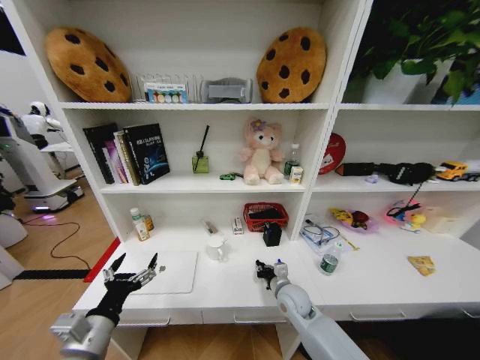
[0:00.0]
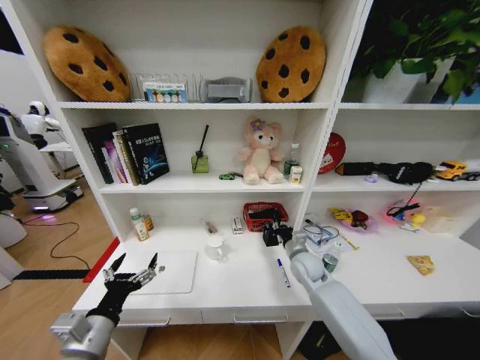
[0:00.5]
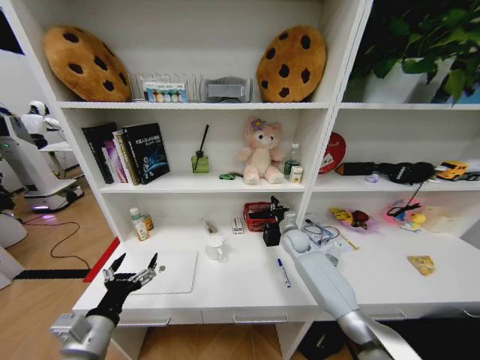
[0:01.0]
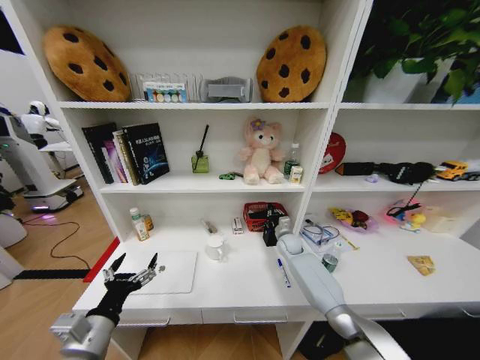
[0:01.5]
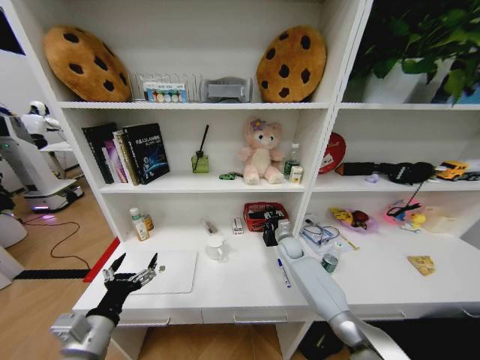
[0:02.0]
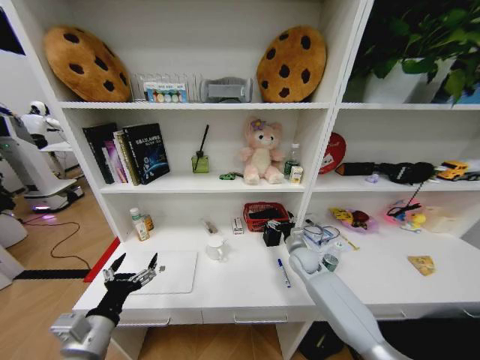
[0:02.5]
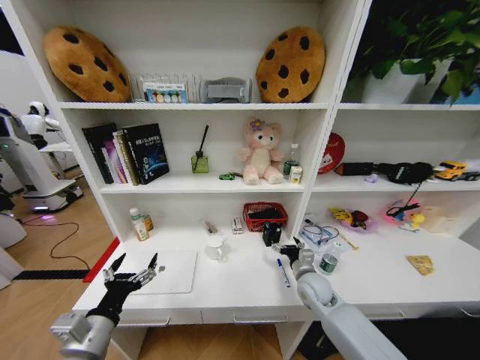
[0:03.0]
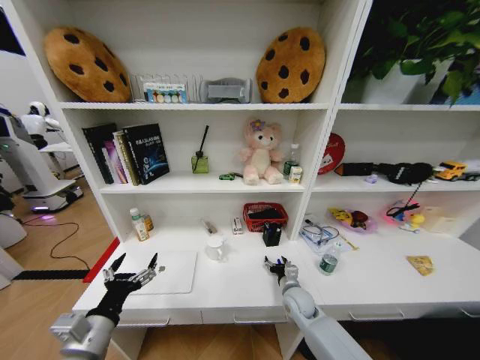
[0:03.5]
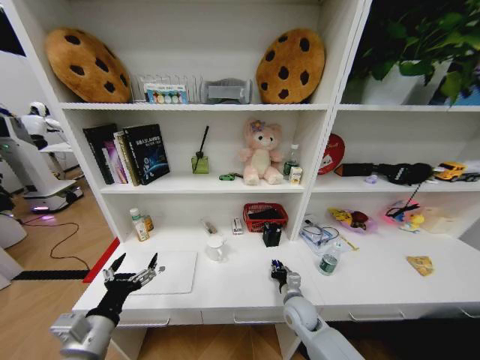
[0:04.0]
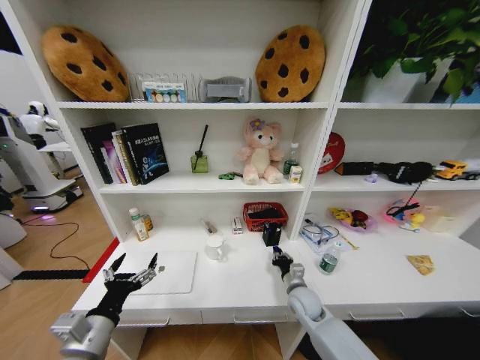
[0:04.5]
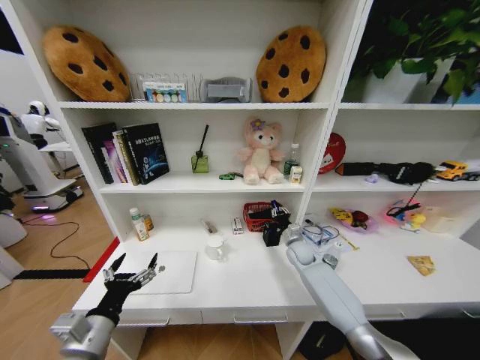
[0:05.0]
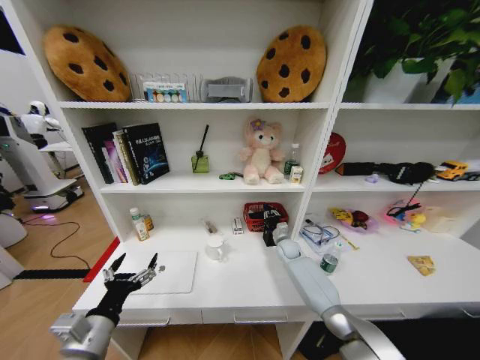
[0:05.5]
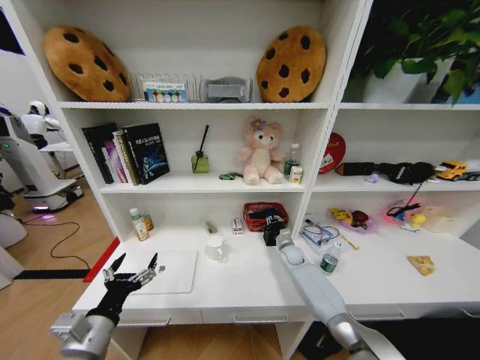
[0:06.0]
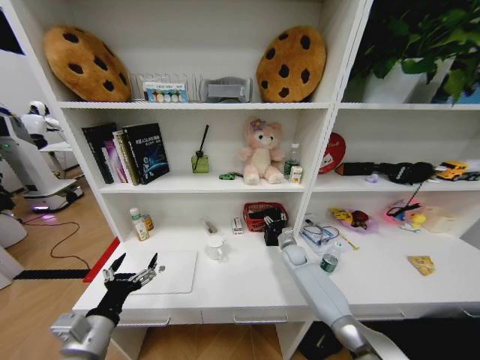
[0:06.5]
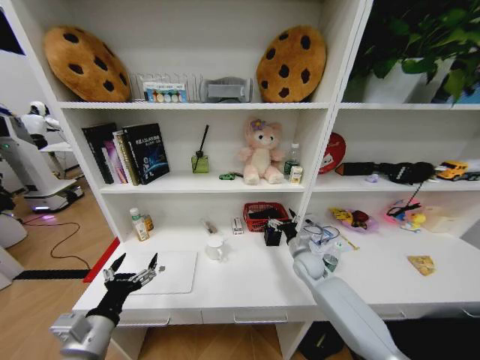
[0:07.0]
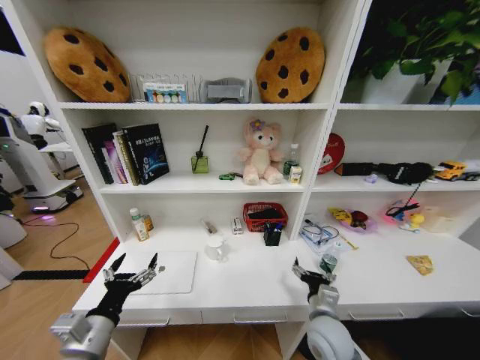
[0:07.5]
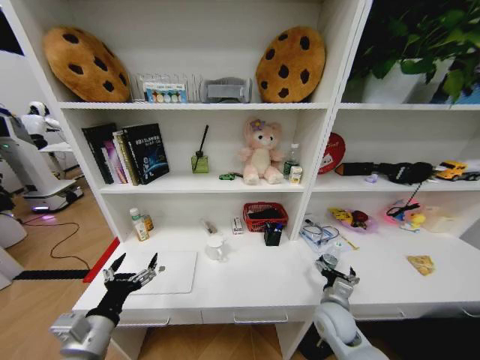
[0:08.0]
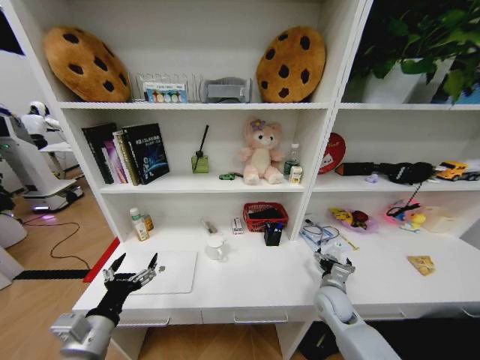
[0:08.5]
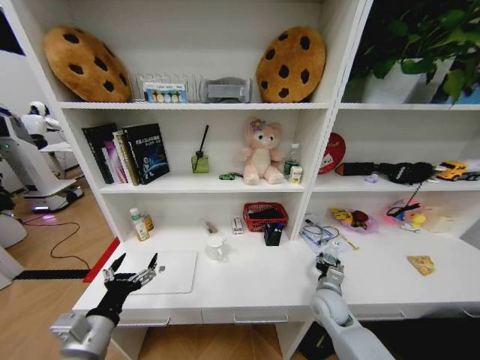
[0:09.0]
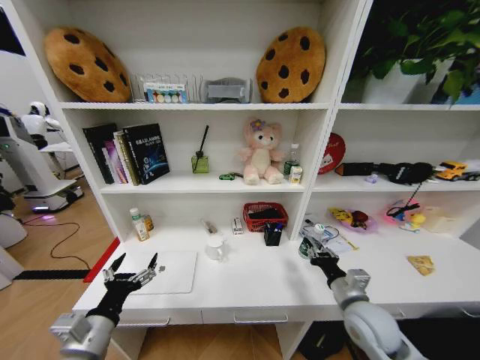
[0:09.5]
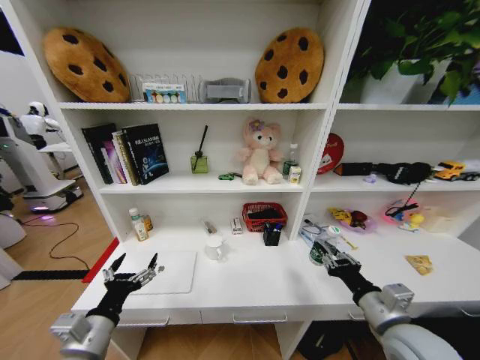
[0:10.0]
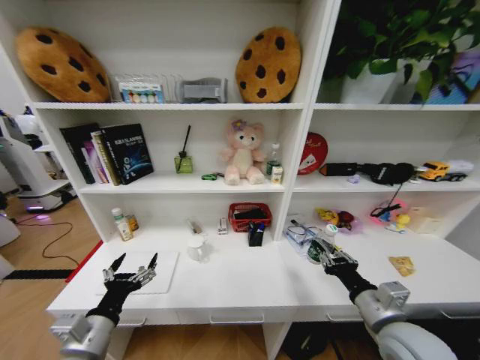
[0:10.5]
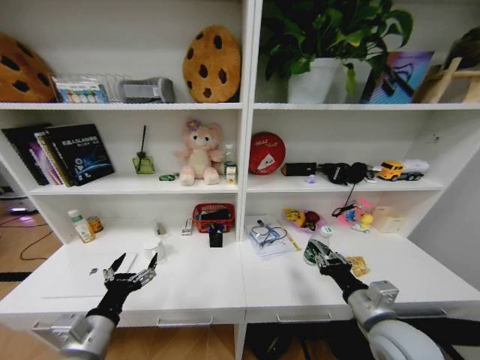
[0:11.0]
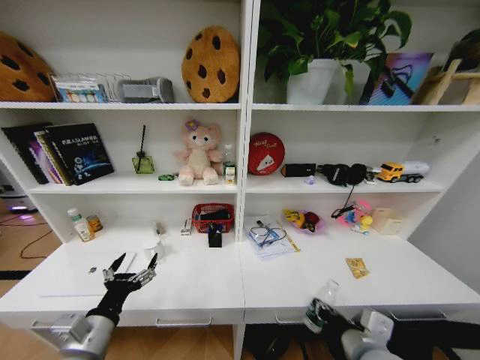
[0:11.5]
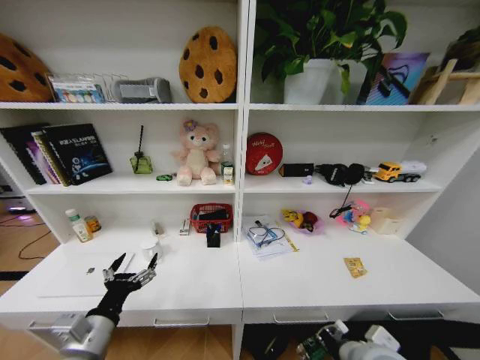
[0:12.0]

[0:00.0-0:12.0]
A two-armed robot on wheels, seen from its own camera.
Task of the whole recording: Organize the objects on the table.
0:00.0 to 0:02.0: The right gripper moves forward, roughly 20 cm.
0:02.0 to 0:04.0: The right gripper shifts some 20 cm backward, and opens, then closes once more.
0:04.0 to 0:06.0: The right gripper travels forward by about 20 cm.
0:06.0 to 0:08.0: The right gripper shifts roughly 25 cm backward, and opens its fingers.
0:08.0 to 0:10.0: The right gripper goes approximately 15 cm upward and backward, and closes up.
0:10.0 to 0:12.0: The right gripper travels to the left by roughly 10 cm.

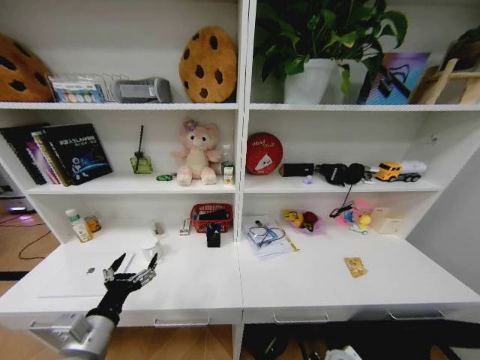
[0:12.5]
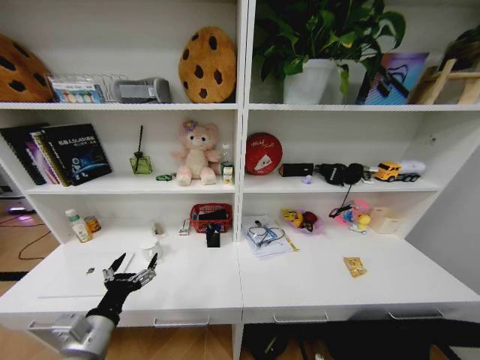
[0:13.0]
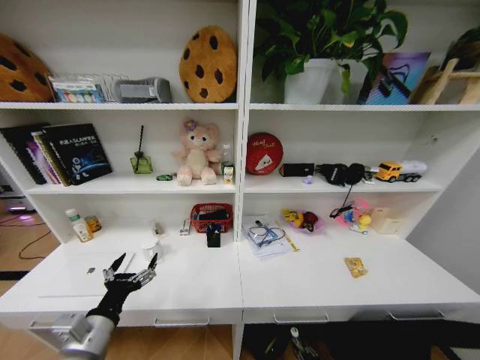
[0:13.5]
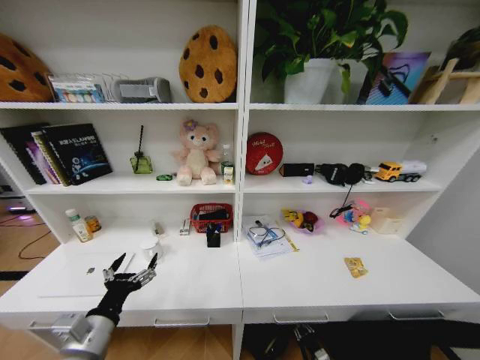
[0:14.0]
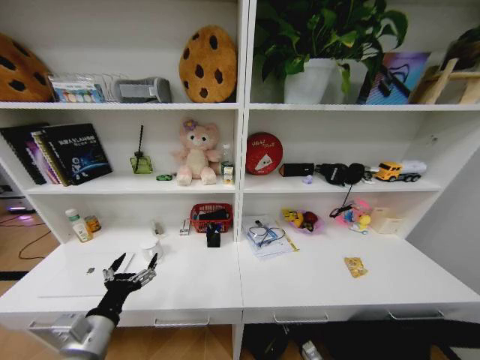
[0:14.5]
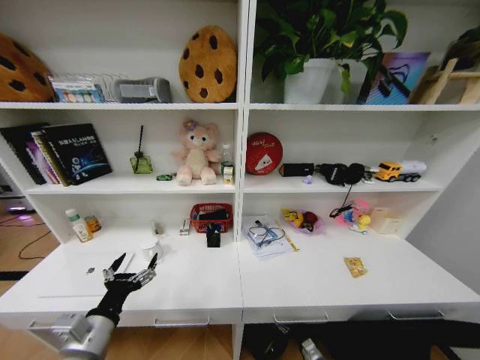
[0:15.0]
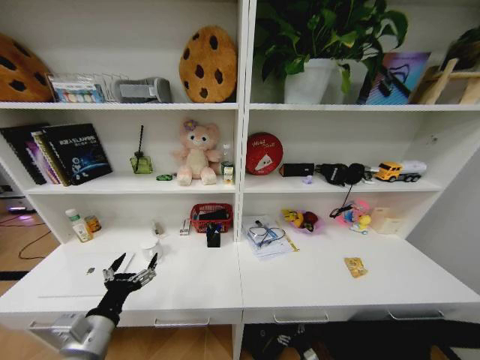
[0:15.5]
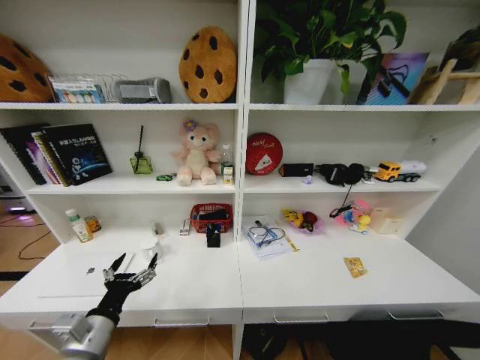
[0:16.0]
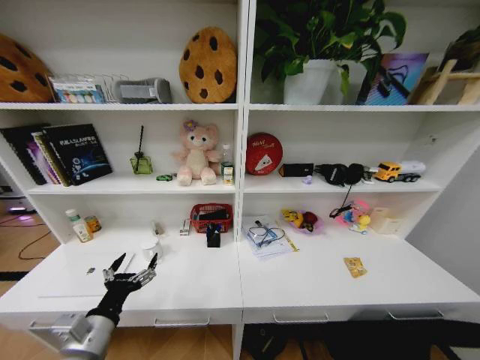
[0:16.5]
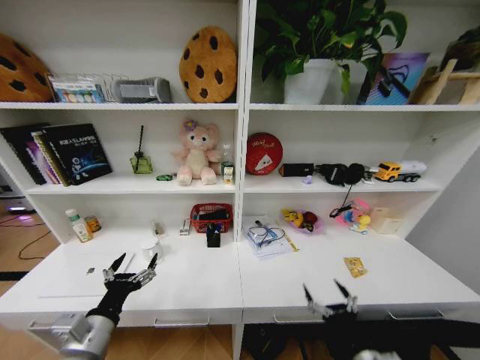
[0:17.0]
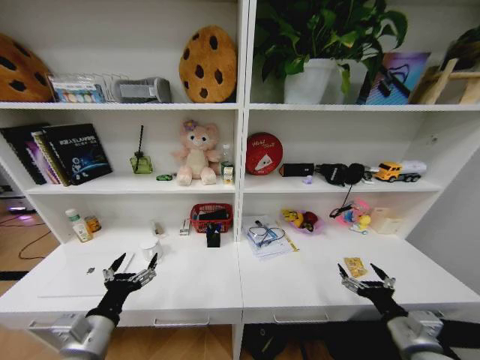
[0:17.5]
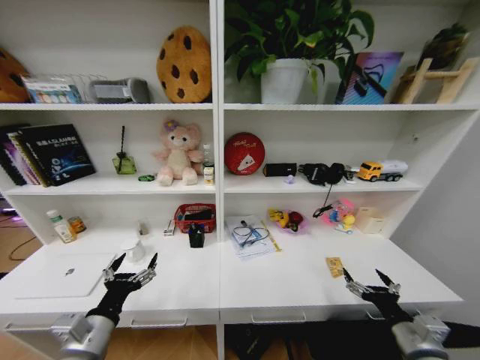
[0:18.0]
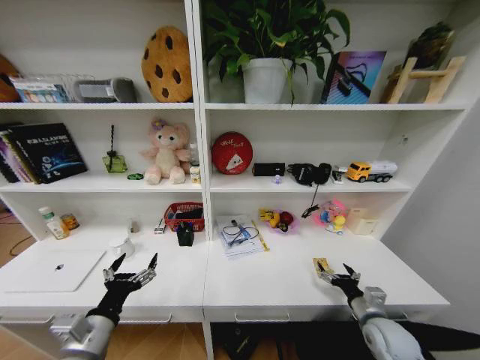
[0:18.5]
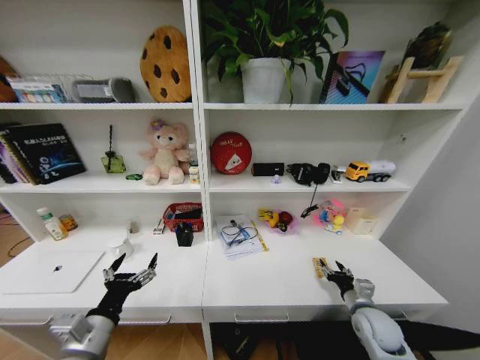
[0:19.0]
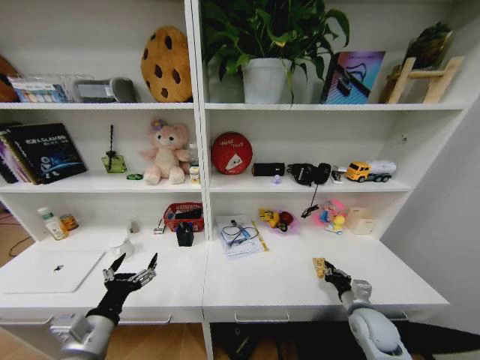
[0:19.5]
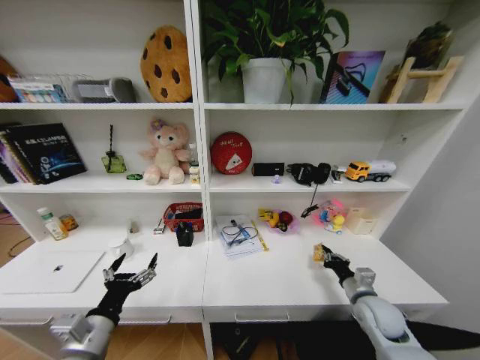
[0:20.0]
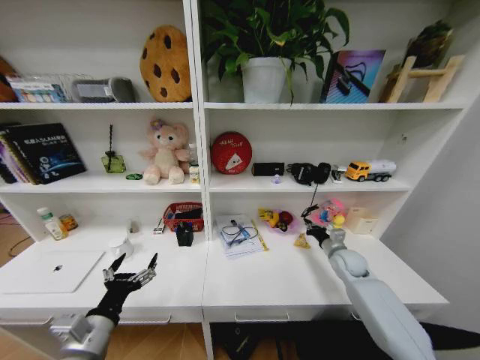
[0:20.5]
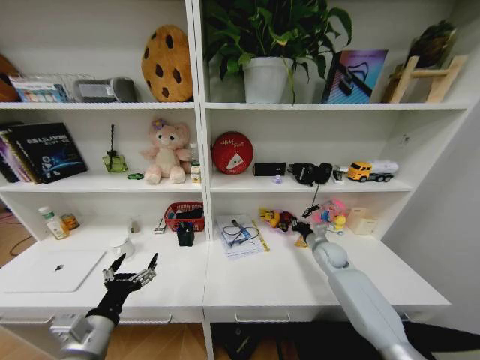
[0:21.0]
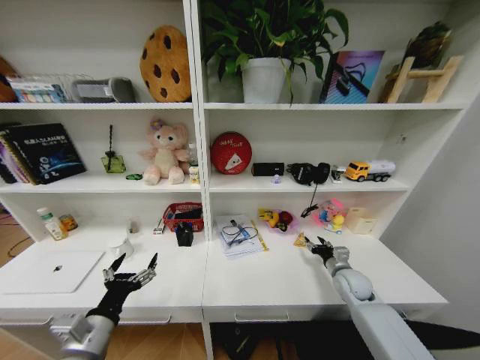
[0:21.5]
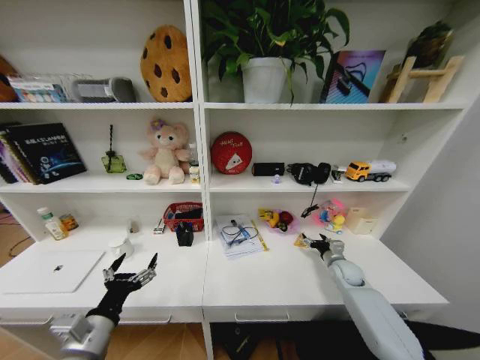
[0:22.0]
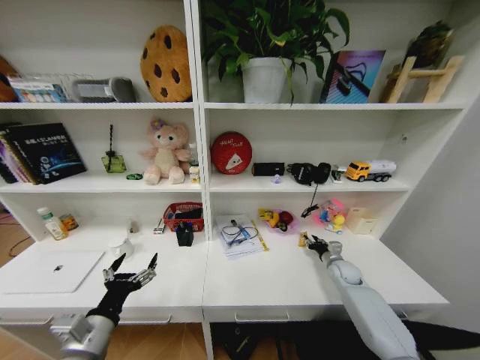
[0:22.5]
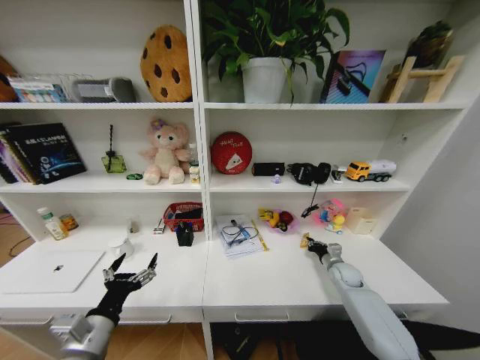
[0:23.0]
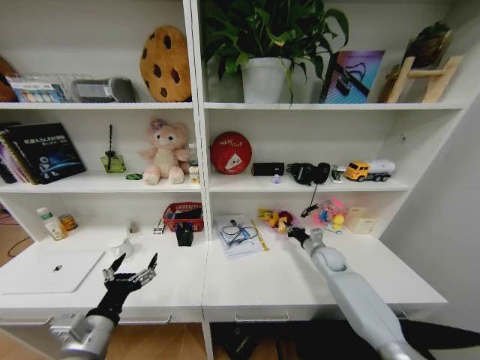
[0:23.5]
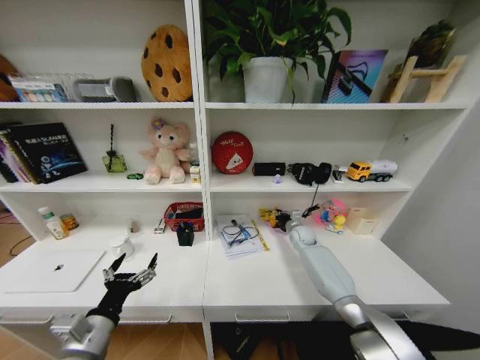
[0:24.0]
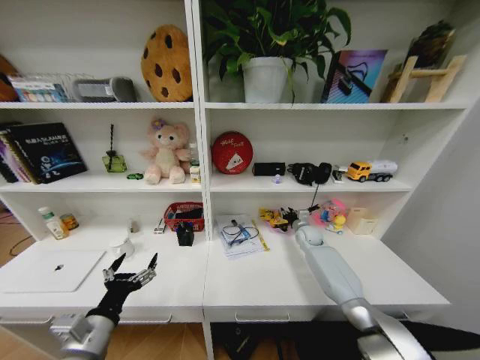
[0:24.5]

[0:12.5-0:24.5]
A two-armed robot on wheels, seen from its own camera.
Task of the whole recording: Organize the objects on the table.
0:14.5 to 0:16.5: The right gripper goes roughly 30 cm backward and upward, and opens.
0:16.5 to 0:18.5: The right gripper heads forward and upward, covering approximately 35 cm.
0:18.5 to 0:20.5: The right gripper moves forward, some 20 cm, and closes its fingers.
0:20.5 to 0:22.5: The right gripper heads downward, covering about 5 cm, reaches approximately 5 cm backward, then returns, and opens.
0:22.5 to 0:24.5: The right gripper travels forward, to the left and upward by roughly 15 cm, and closes, then opens again.

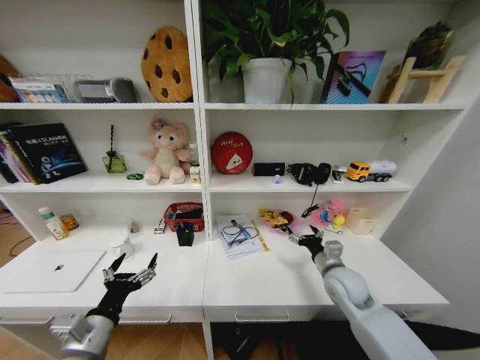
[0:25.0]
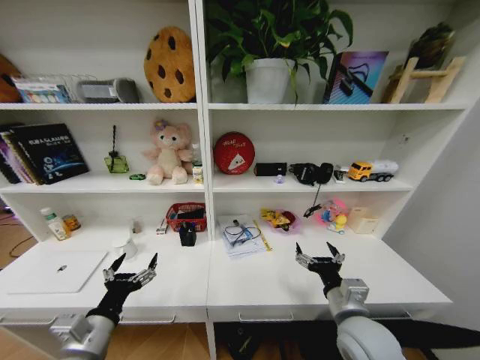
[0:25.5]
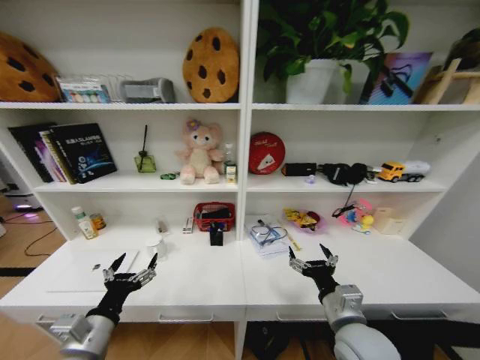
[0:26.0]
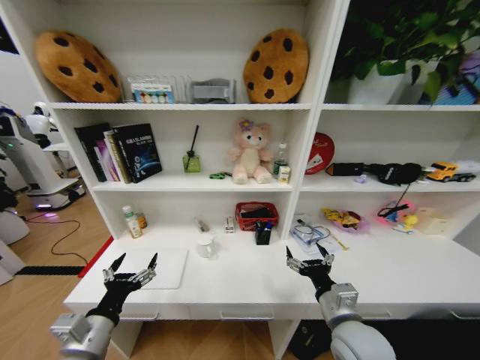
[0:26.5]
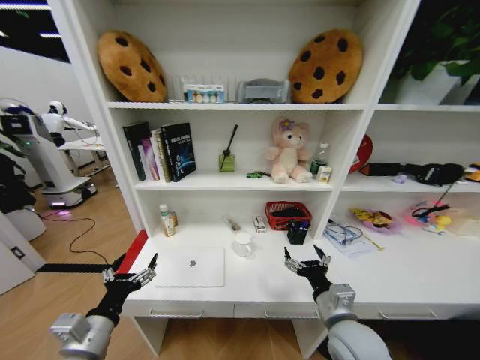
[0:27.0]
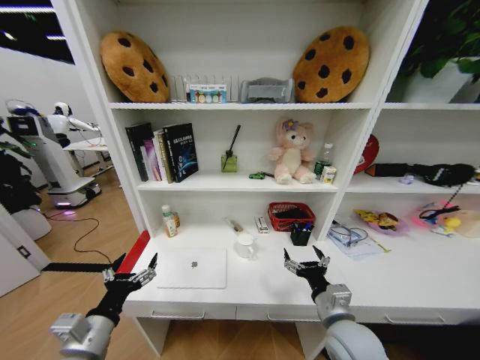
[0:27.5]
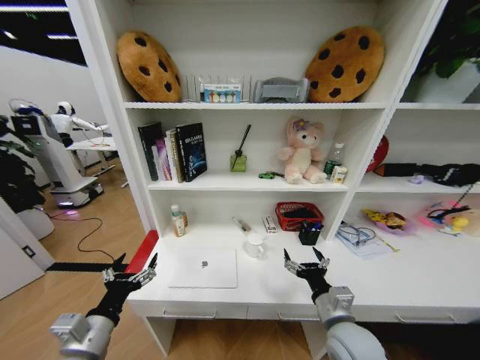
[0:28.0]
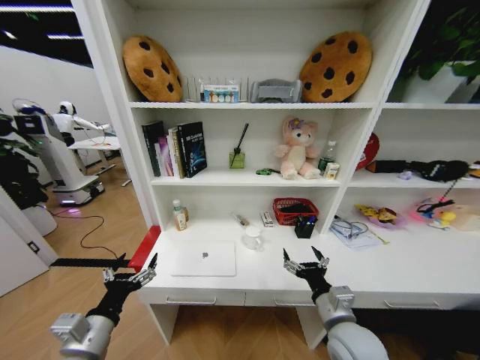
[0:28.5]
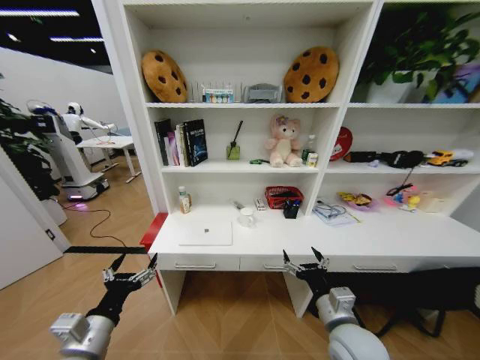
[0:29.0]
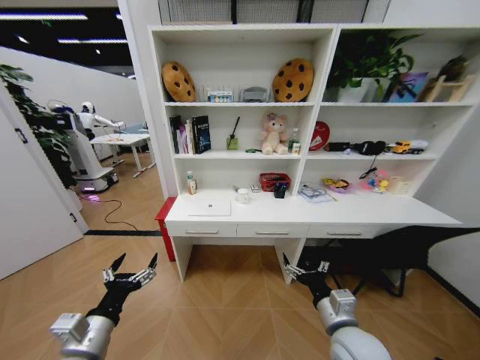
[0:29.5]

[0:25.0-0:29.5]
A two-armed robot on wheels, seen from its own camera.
Task of the whole recording: Organize the objects on the table.
0:25.0 to 0:27.0: The right gripper travels backward and to the left by some 15 cm.
